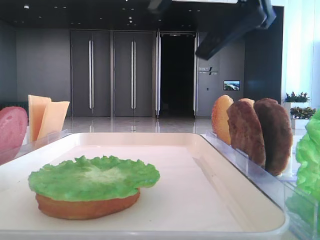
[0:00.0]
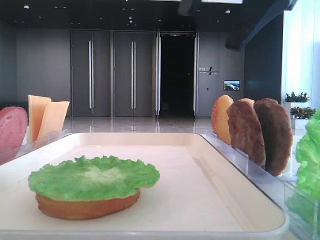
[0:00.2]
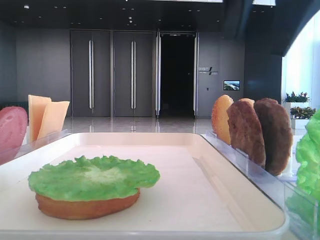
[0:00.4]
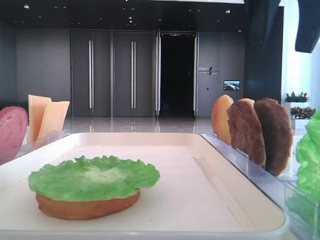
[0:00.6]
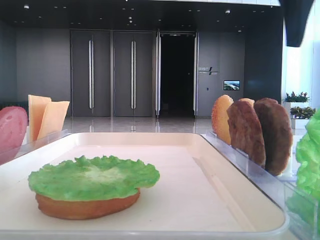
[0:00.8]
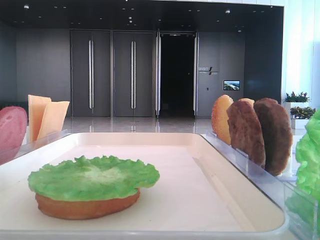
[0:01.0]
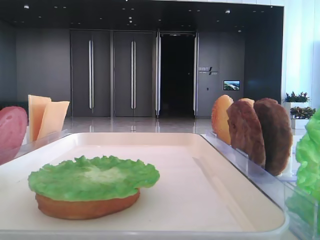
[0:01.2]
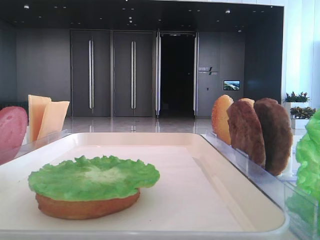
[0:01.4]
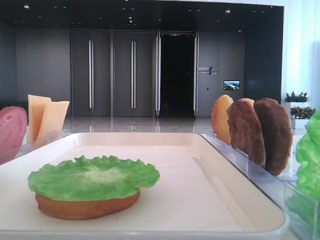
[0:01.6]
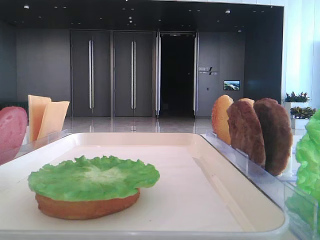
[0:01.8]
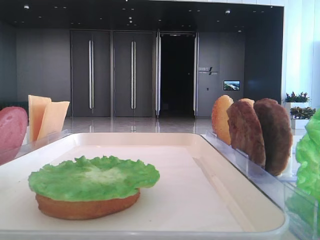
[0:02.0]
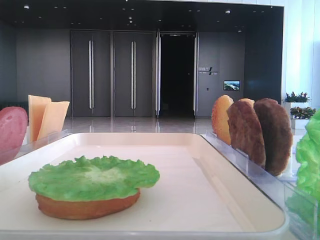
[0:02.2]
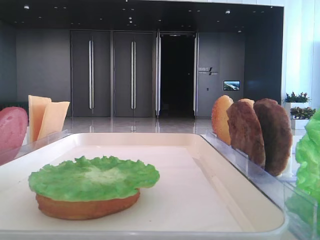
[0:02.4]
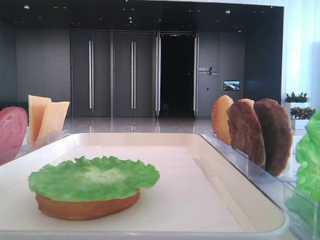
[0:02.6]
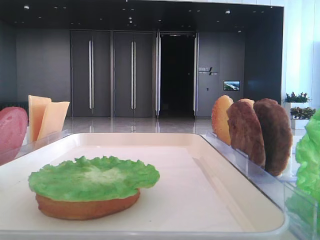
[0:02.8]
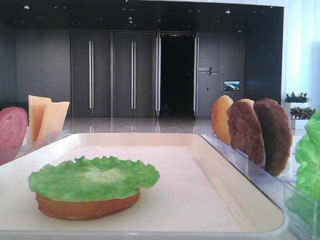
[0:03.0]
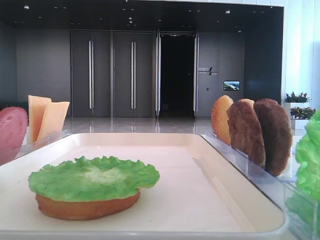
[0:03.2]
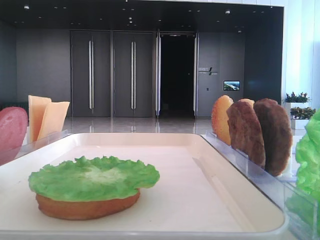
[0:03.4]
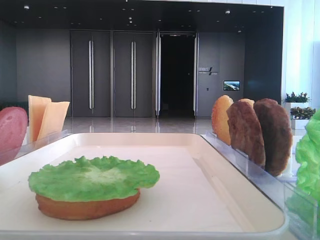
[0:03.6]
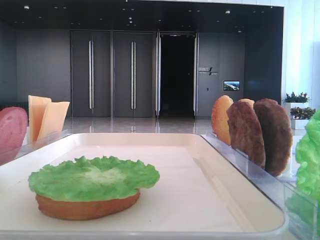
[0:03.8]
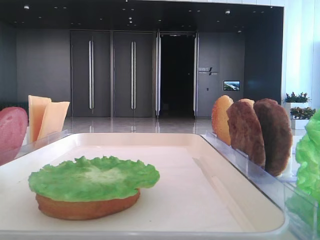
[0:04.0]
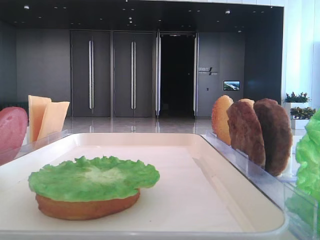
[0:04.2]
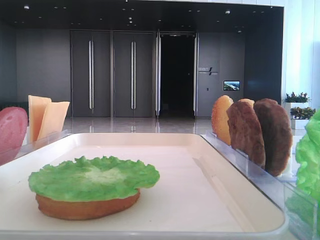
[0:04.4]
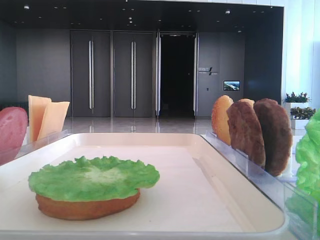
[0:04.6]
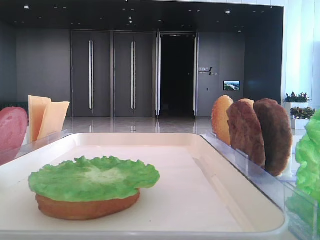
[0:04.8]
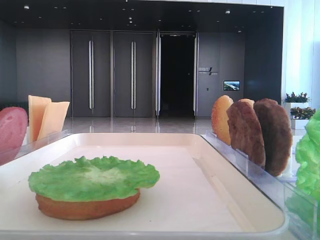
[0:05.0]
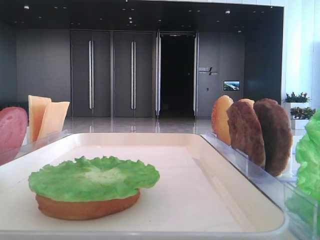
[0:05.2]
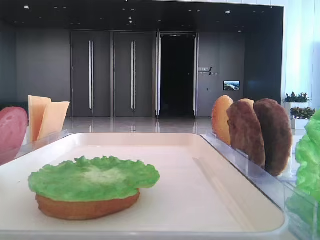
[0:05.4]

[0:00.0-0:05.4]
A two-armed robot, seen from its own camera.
0:00.0 to 0:01.4: The right gripper shifts about 25 cm to the right.
0:04.0 to 0:05.4: Both grippers stay put.

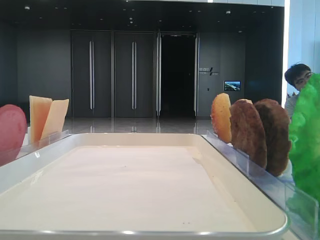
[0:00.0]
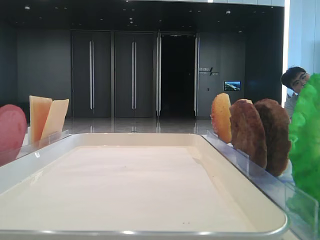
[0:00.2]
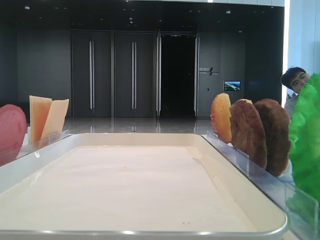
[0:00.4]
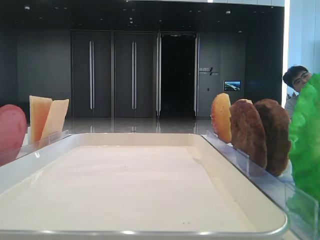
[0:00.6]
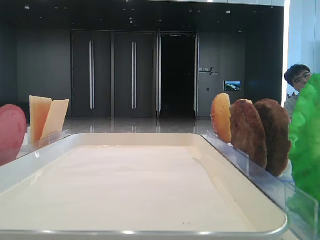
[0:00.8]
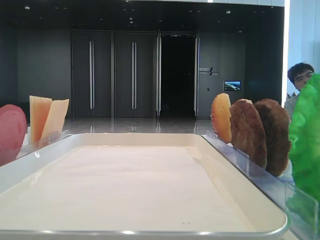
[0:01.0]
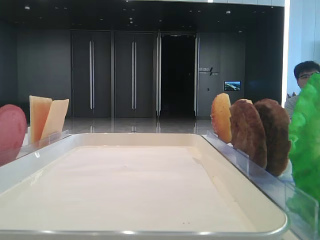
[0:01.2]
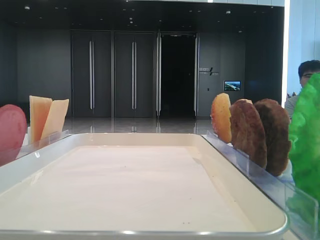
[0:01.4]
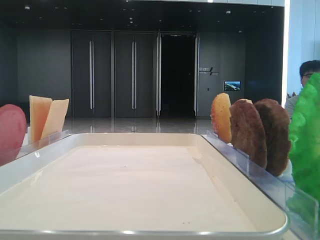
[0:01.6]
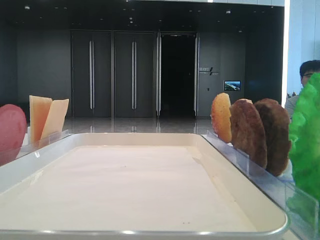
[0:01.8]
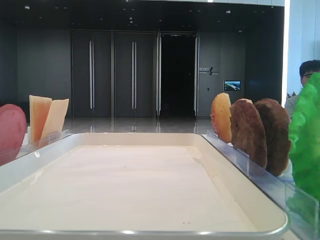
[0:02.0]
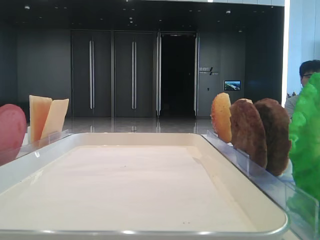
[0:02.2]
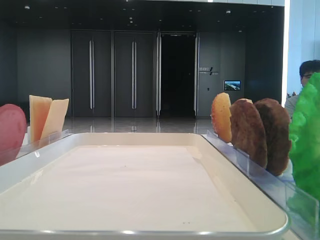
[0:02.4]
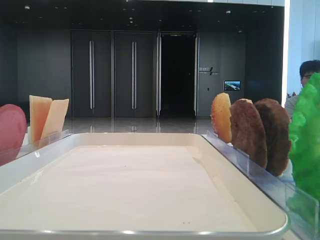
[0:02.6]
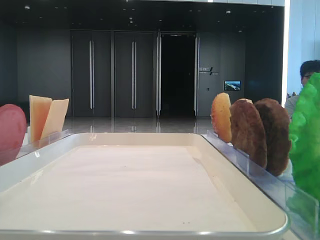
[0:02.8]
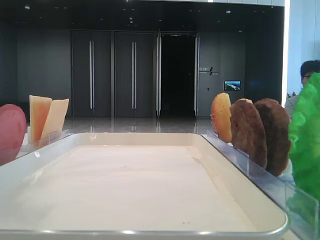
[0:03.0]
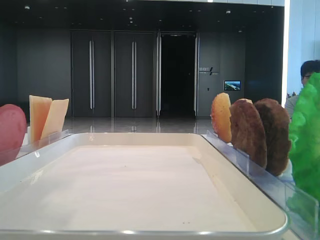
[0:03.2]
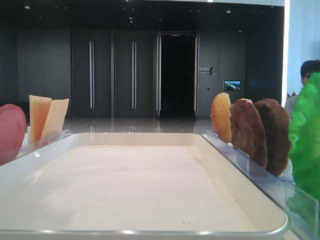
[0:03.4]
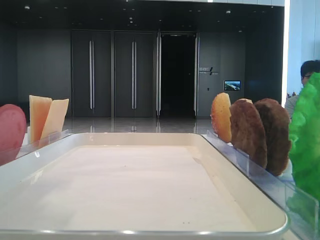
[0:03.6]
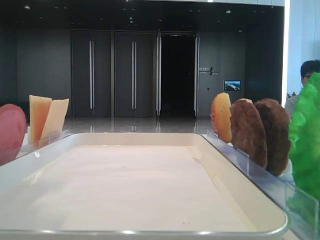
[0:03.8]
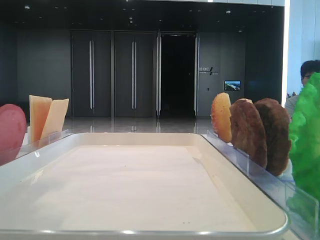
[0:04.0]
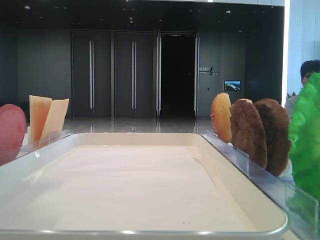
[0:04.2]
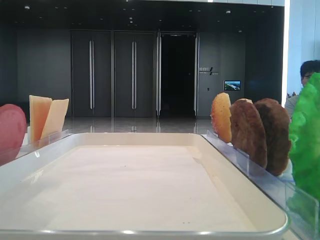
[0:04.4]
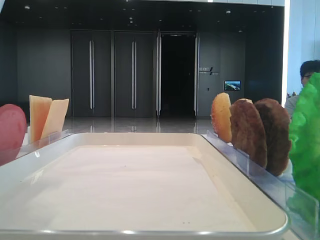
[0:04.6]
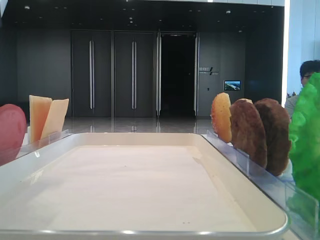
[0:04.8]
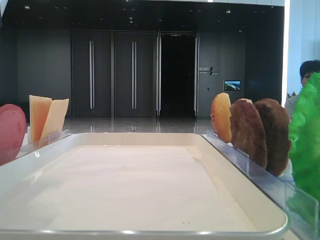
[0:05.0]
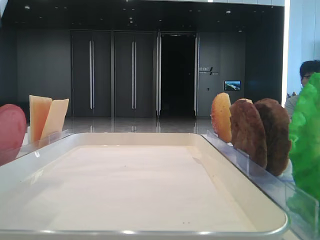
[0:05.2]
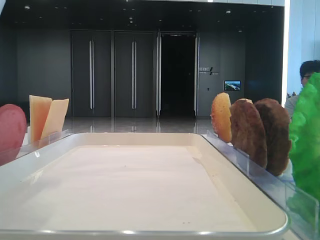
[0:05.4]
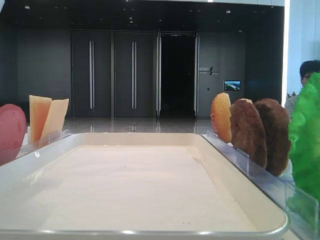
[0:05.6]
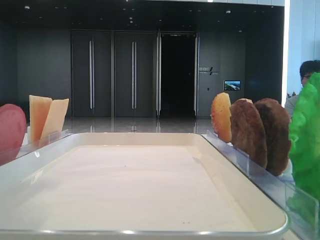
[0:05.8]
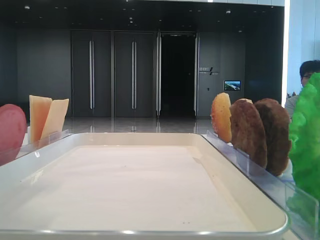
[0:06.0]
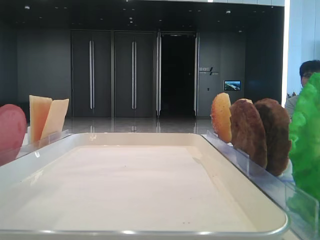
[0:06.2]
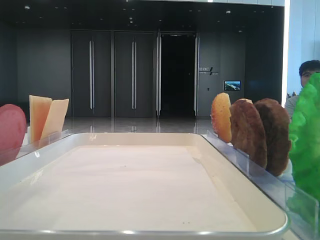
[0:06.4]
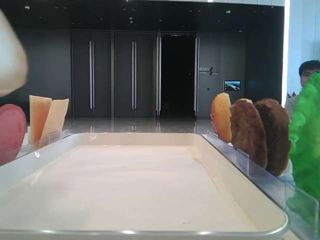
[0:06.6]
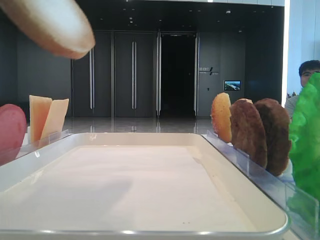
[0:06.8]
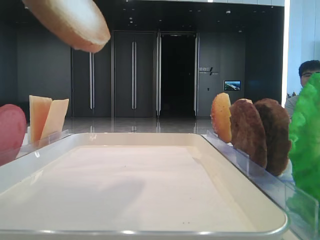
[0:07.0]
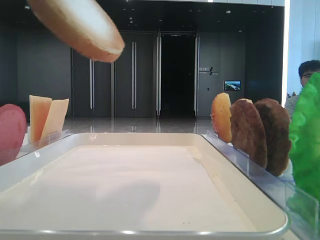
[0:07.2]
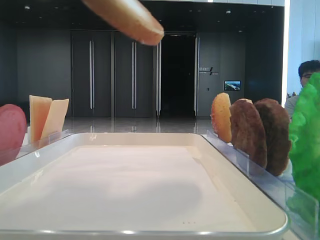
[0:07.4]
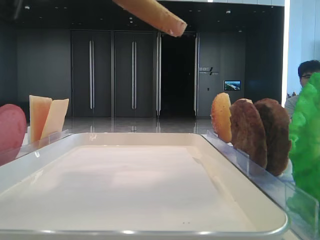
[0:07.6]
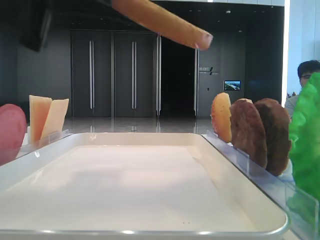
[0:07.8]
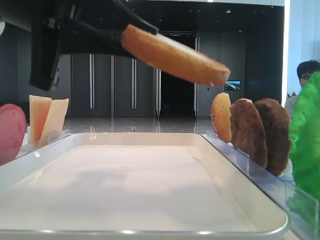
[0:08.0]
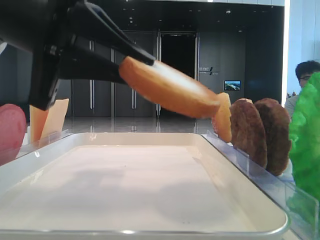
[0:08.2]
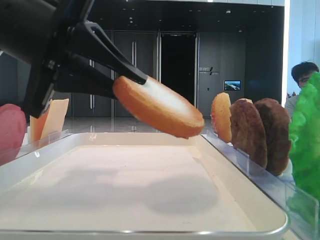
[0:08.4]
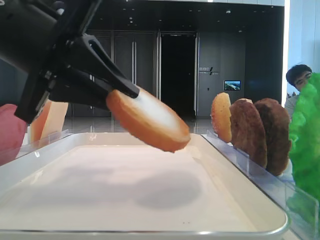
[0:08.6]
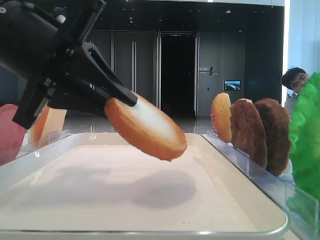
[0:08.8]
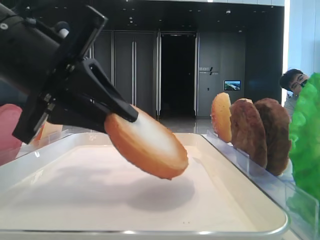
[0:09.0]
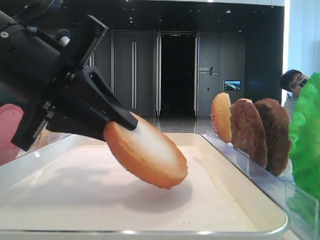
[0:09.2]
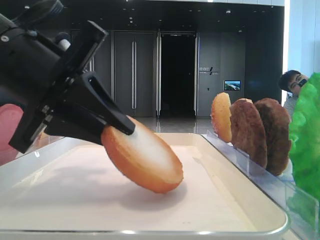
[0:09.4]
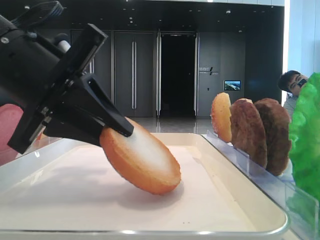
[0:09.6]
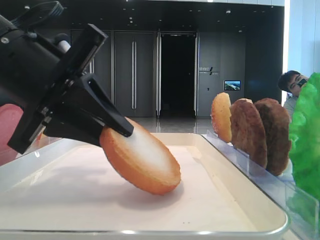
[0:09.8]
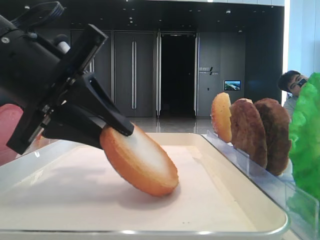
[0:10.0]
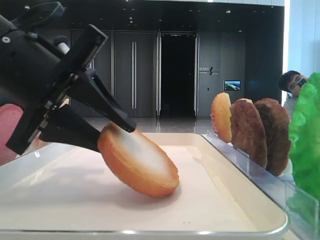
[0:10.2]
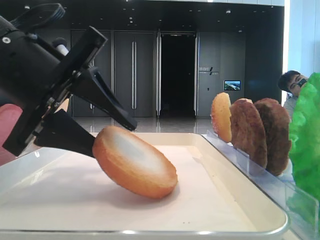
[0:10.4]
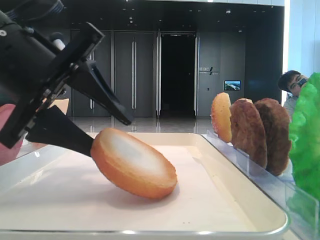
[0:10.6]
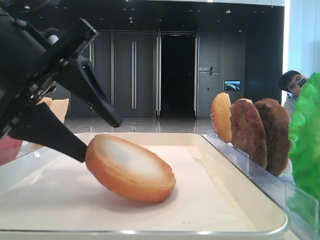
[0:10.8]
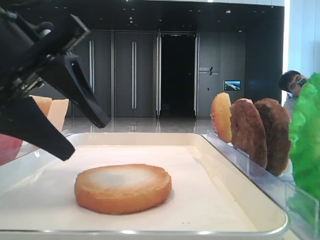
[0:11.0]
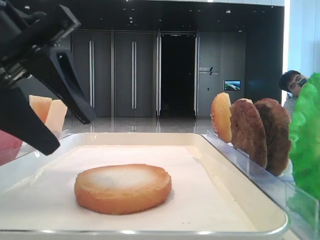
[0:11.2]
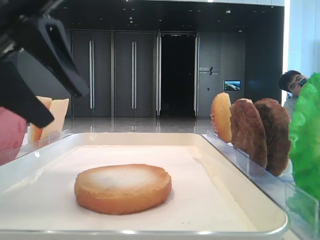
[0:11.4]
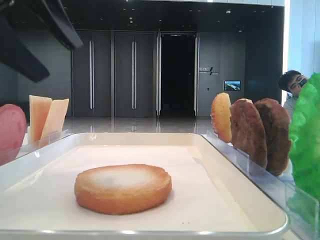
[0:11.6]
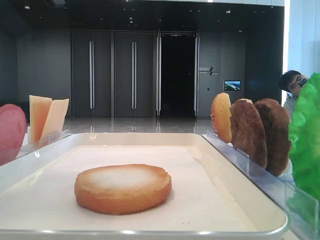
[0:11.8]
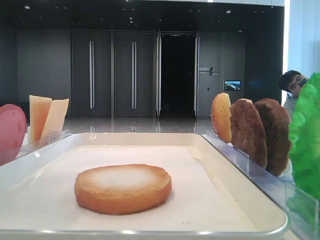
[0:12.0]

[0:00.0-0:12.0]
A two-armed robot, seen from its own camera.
Step, 0:05.4 to 0:10.8: Place the bread on the tray with the left hand.
0:06.0 to 0:07.6: The left gripper moves roughly 5 cm.
0:07.6 to 0:09.0: The left gripper goes roughly 10 cm downward.
0:09.0 to 0:10.4: The left gripper opens.
0:10.4 to 0:12.0: The left gripper goes some 20 cm upward.

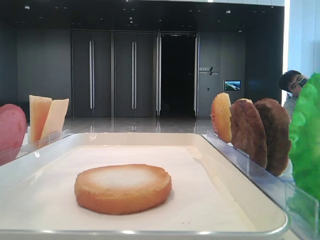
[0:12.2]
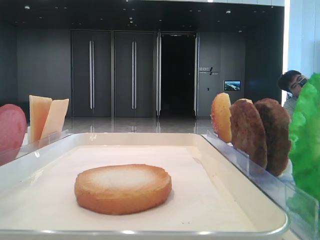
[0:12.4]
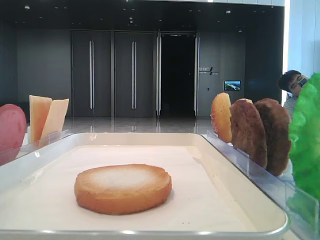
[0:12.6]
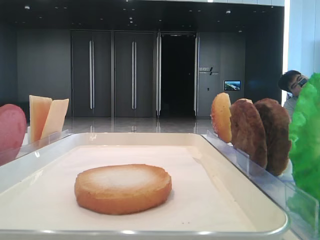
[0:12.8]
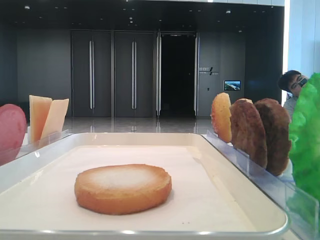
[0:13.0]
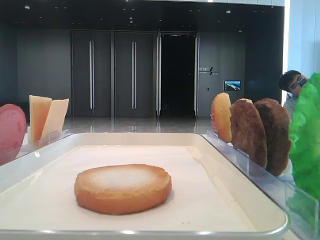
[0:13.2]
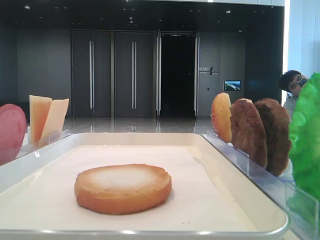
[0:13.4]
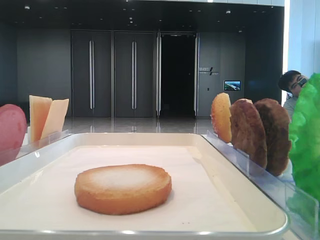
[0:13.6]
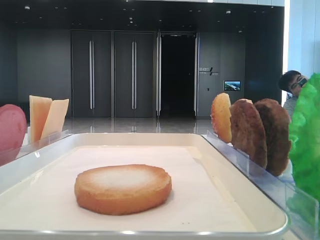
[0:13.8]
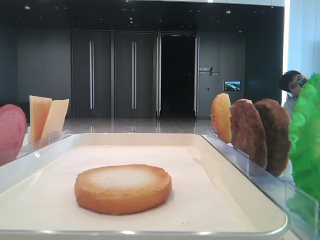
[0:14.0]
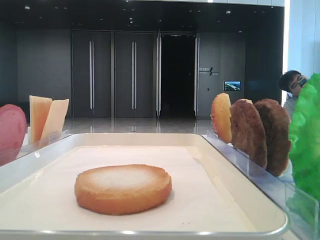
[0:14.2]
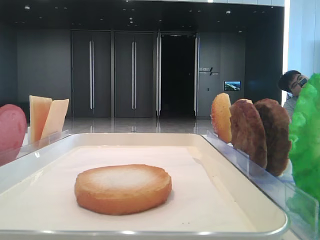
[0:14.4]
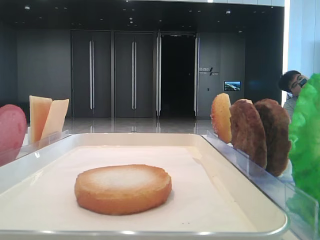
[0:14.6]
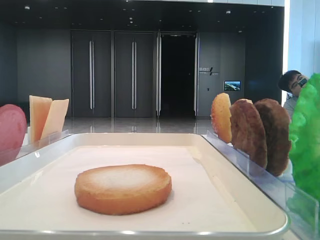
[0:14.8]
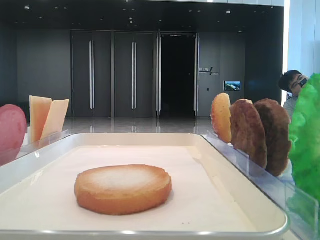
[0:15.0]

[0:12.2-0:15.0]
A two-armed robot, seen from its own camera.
0:12.2 to 0:13.6: The left gripper goes about 10 cm to the left and backward.

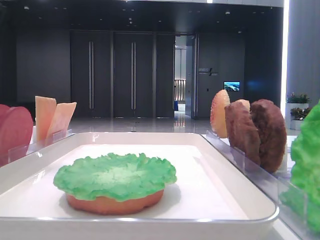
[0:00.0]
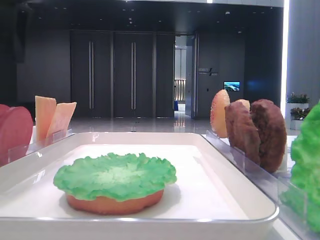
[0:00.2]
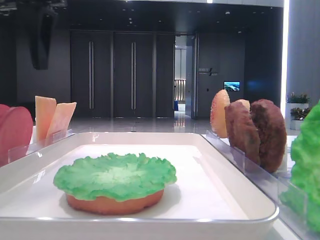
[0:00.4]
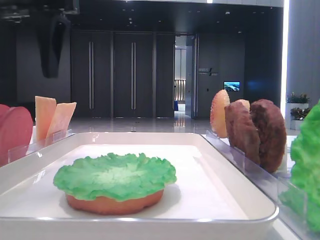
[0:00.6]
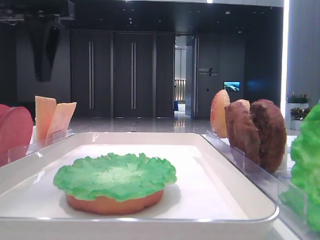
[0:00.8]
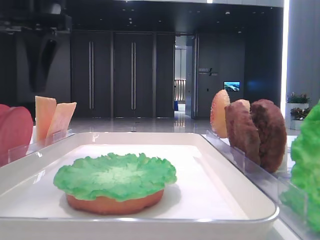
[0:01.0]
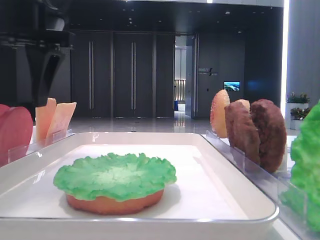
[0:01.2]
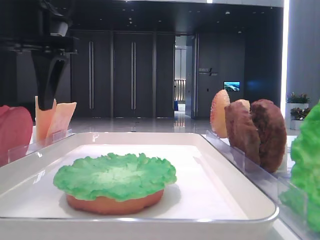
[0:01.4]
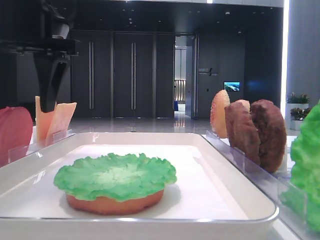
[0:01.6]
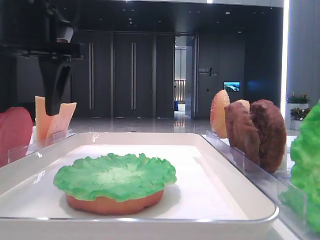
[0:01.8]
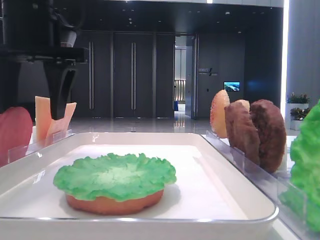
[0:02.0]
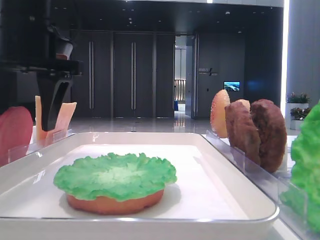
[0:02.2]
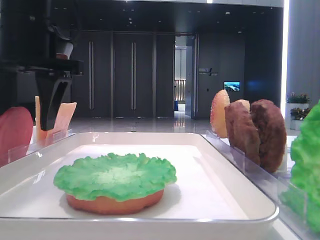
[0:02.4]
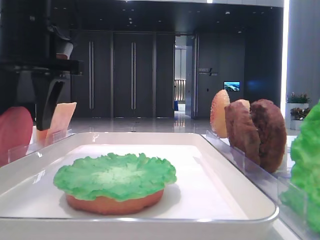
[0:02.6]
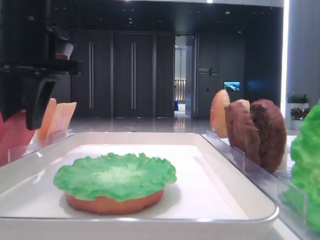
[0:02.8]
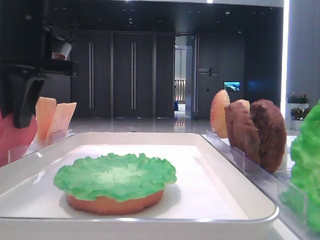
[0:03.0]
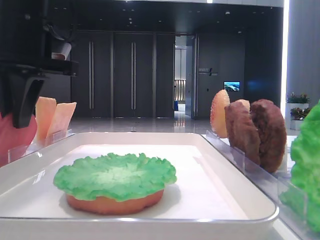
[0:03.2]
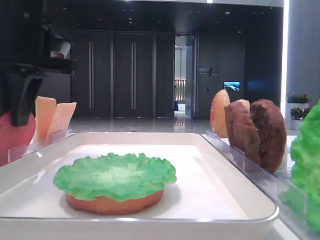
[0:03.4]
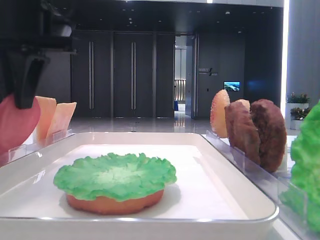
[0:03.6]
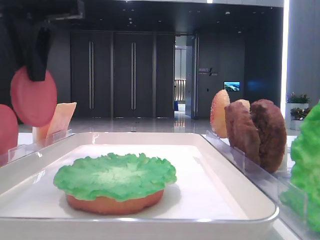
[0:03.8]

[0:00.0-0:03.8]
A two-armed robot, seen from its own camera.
Step, 0:00.0 to 0:03.0: Pick up the tomato slice with the left hand.
0:00.0 to 0:01.2: The left gripper is displaced to the right and downward by some 10 cm.
0:01.2 to 0:02.6: The grippers make only small movements.
0:02.6 to 0:03.8: The left gripper is displaced upward by about 5 cm, and closes its fingers.
